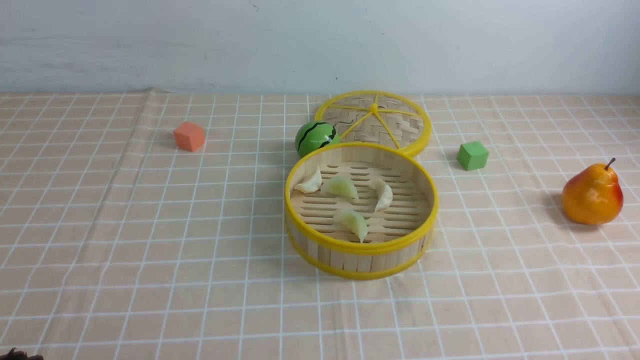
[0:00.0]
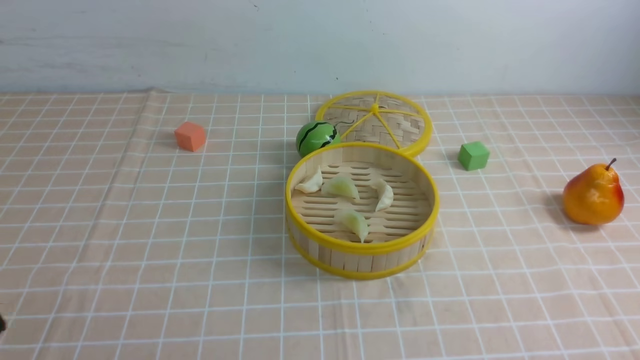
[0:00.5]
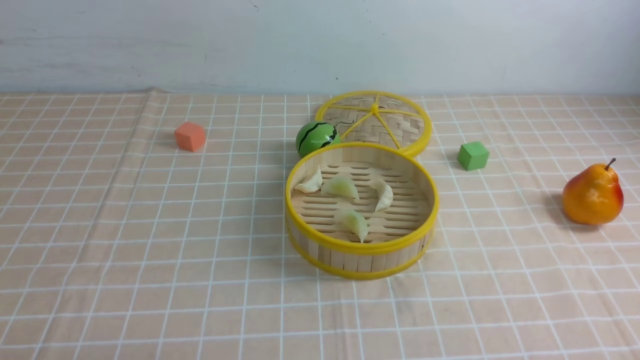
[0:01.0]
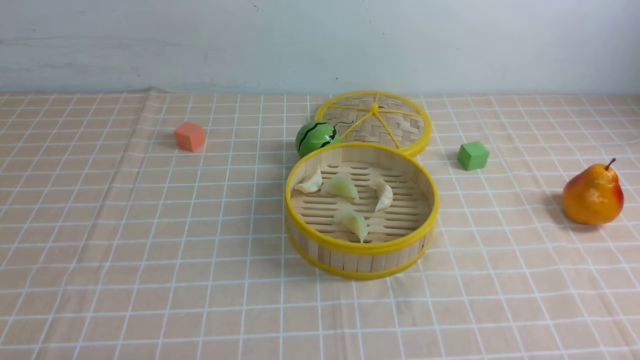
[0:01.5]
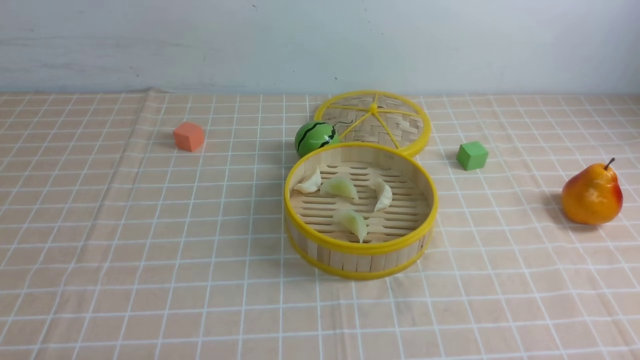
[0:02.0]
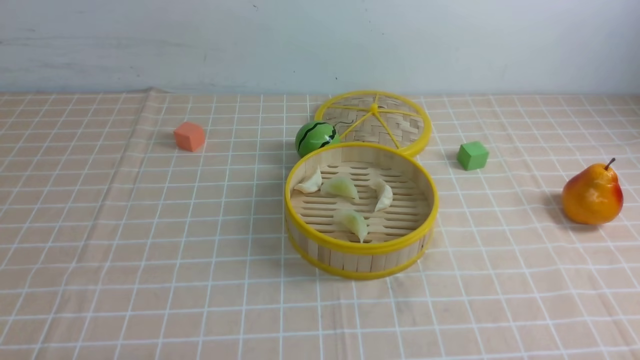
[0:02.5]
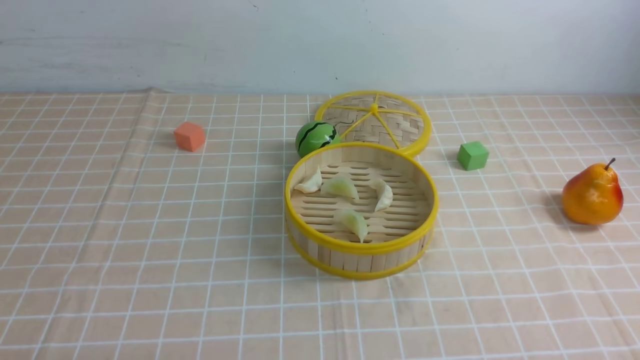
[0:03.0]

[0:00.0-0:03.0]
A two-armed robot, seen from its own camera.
Task of the whole recording: put the dumplings into the steamer on the table with the brown tablecloth.
0:01.5 to 0:03.0: Both grippers stay put.

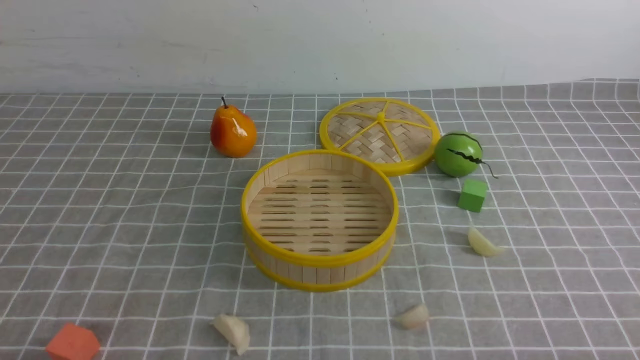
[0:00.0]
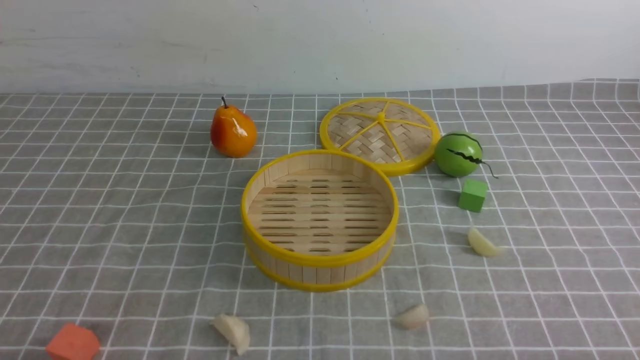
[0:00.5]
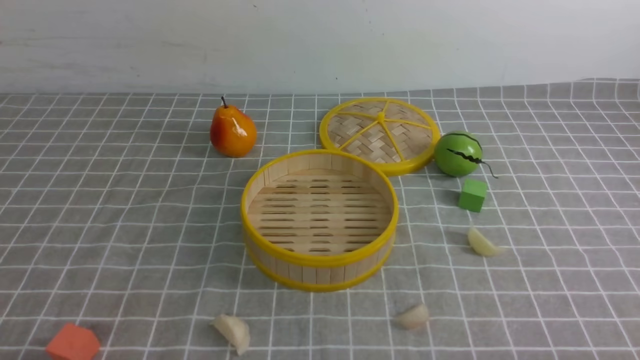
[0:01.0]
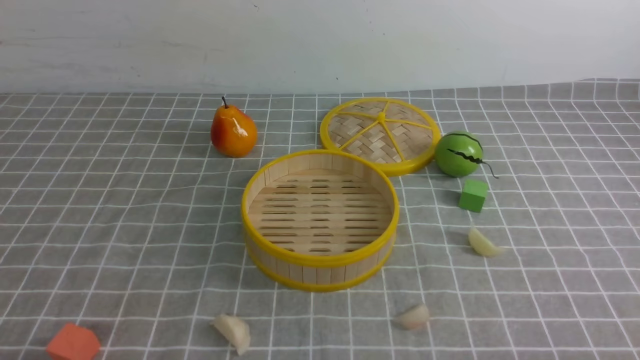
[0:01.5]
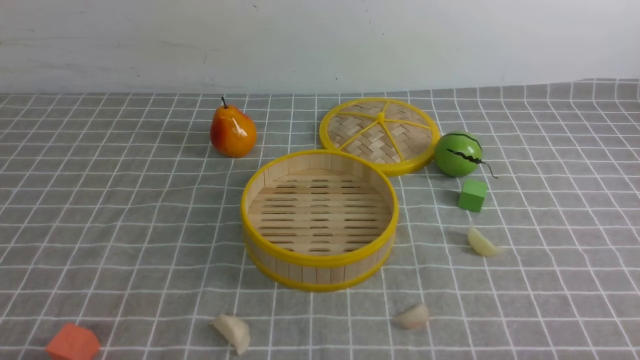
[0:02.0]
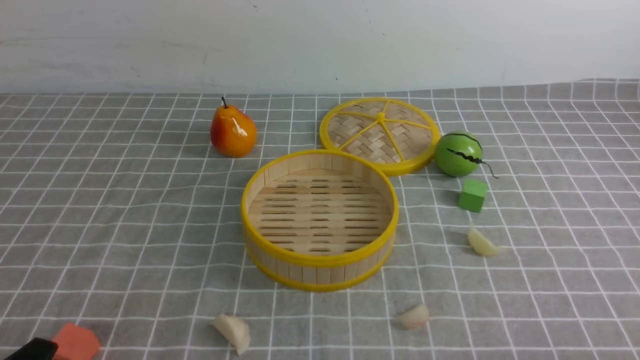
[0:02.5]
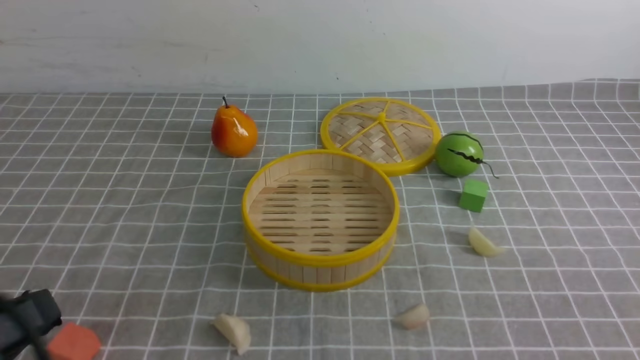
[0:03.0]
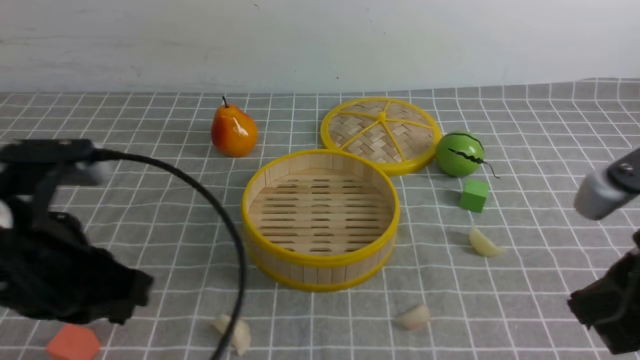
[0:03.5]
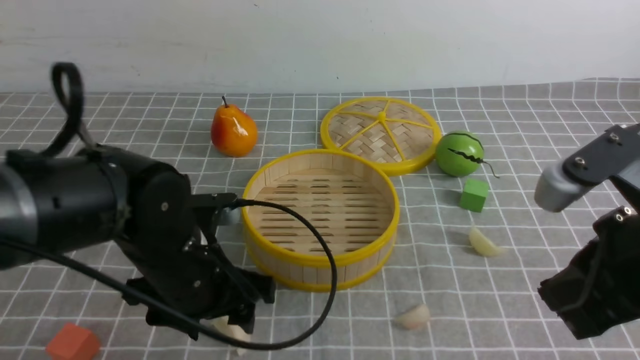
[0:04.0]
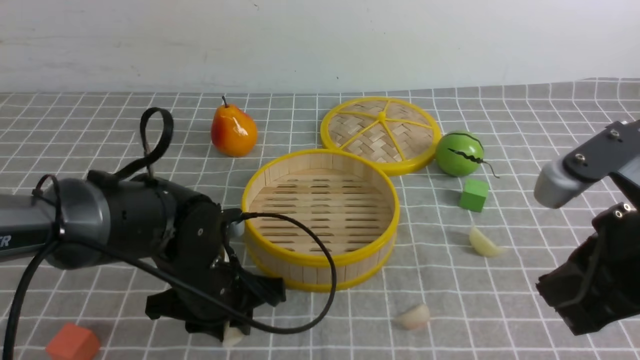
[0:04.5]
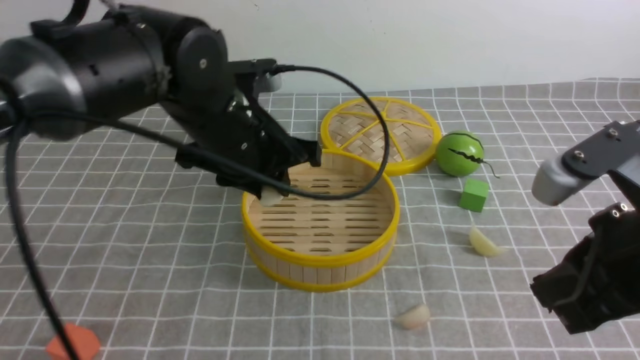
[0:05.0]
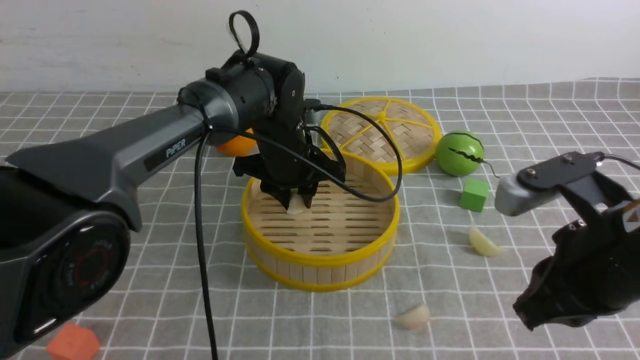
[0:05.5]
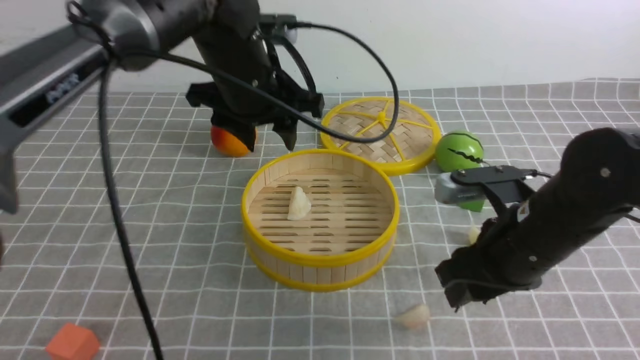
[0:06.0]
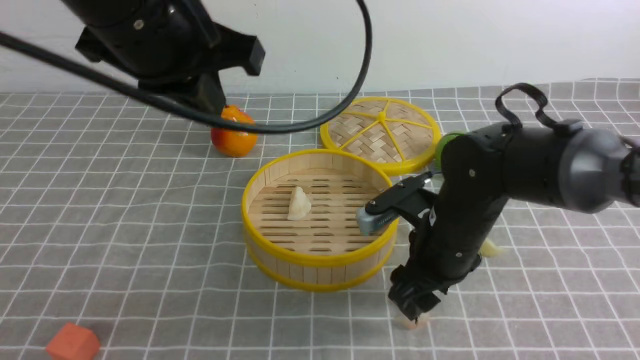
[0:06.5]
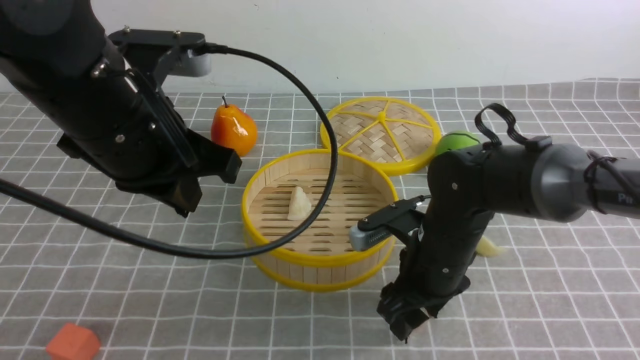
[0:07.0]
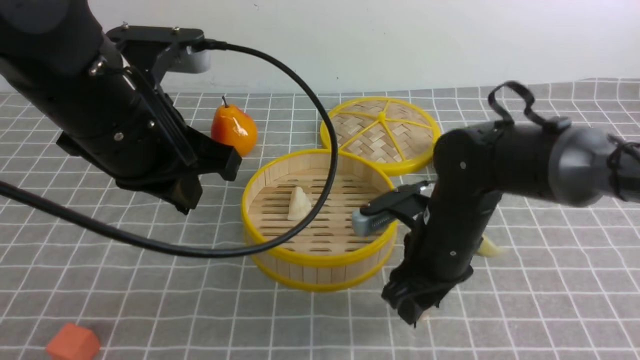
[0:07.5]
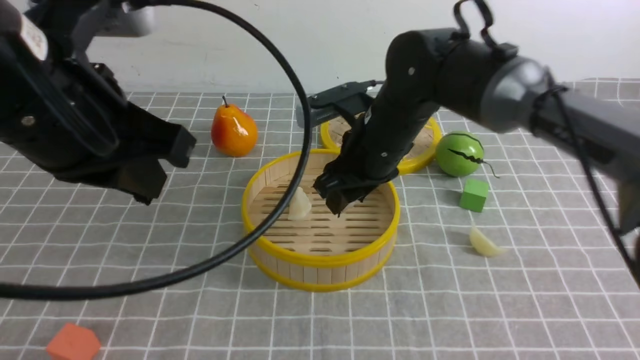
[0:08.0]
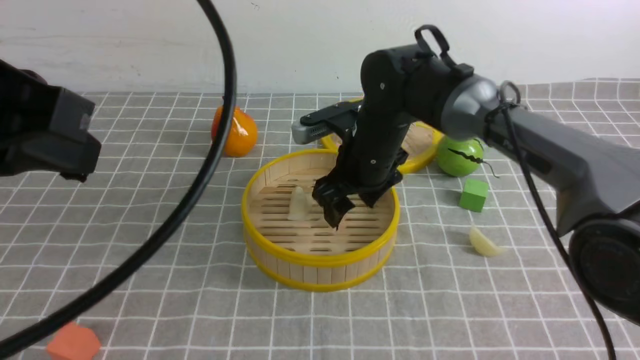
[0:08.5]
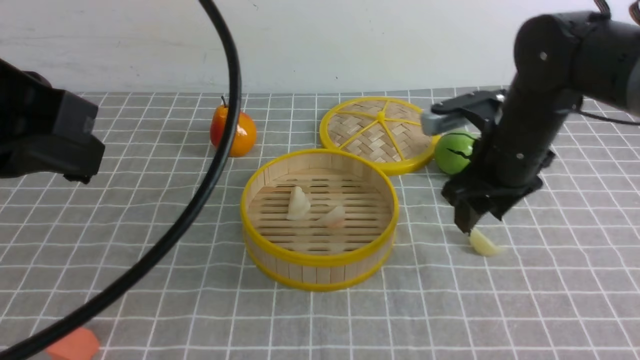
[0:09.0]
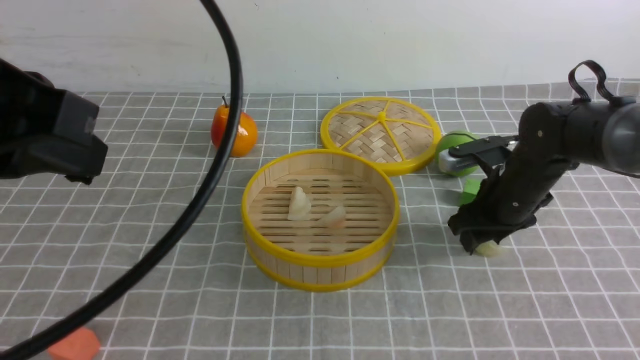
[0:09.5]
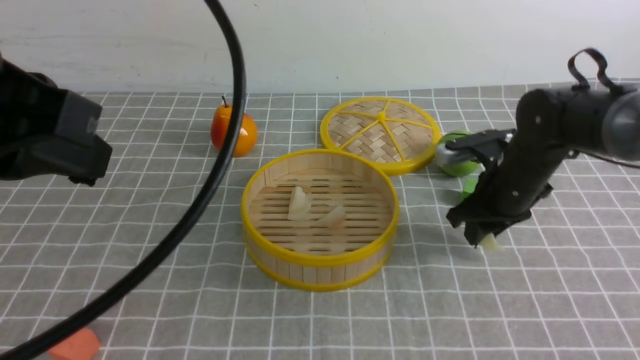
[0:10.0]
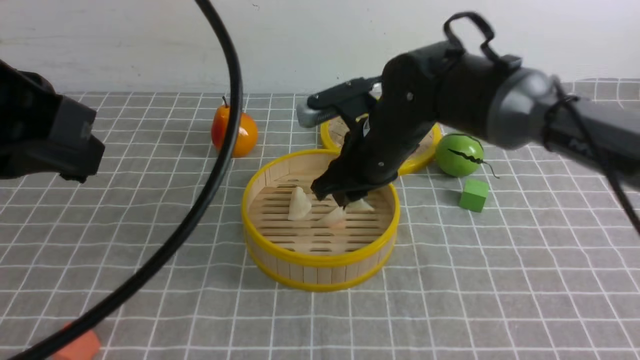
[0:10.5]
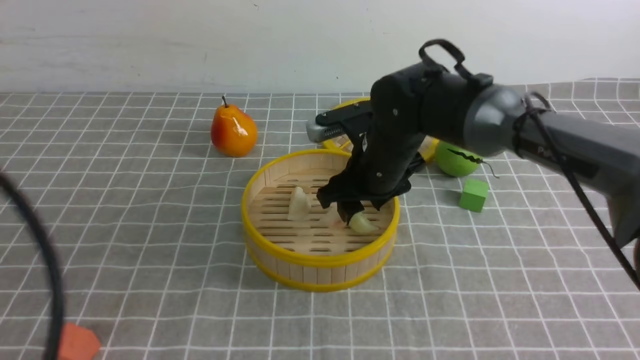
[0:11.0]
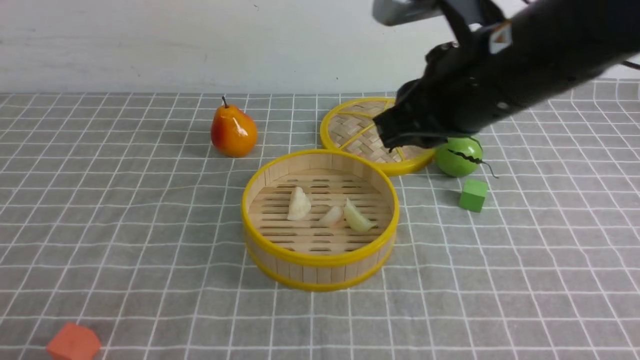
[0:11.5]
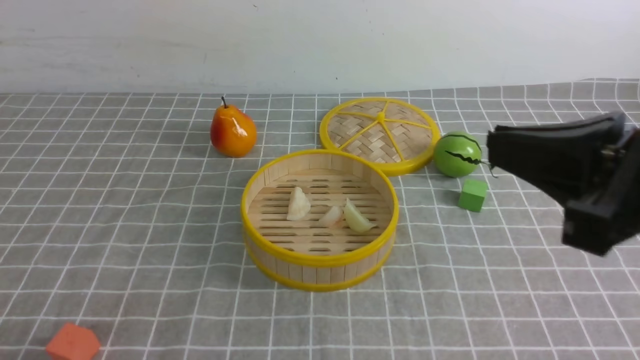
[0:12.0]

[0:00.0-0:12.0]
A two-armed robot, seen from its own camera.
Task of the whole recording: put the dumplings into the steamer on the table with the grey tablecloth.
Step, 0:00.0 to 0:04.5: use the left arm to grab a dumpling.
Step, 0:05.0 to 0:05.5: use the left arm to put the dumpling into the steamer.
Step, 0:06.0 to 0:07.0: use the right arm to grab a dumpling.
Step, 0:08.0 to 0:08.5: use the right arm to put the dumpling into the steamer.
Step, 0:09.0 to 0:09.5: use the right arm to grab a dumpling.
Step, 0:10.5 to 0:11.0: use the right arm to put the dumpling into the steamer.
0:02.0 to 0:04.0: The right gripper heads upward, forward and to the left, covering some 20 cm, and closes its fingers, while the left gripper shifts about 25 cm forward and to the right, and opens up.
0:04.0 to 0:06.0: The right gripper shifts roughly 15 cm forward and downward, and opens; the left gripper is displaced upward and forward by about 20 cm.
0:06.0 to 0:08.0: The left gripper goes some 20 cm backward and to the left, and closes its fingers. Meanwhile the right gripper moves forward and to the left, roughly 15 cm.
0:08.0 to 0:10.0: The right gripper travels to the right by roughly 15 cm; the left gripper travels backward by some 5 cm.
0:10.0 to 0:12.0: The right gripper heads backward and upward, covering approximately 30 cm, and closes. The left gripper goes about 25 cm downward, backward and to the left.

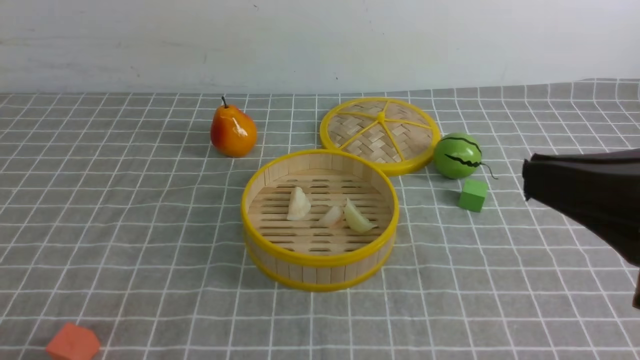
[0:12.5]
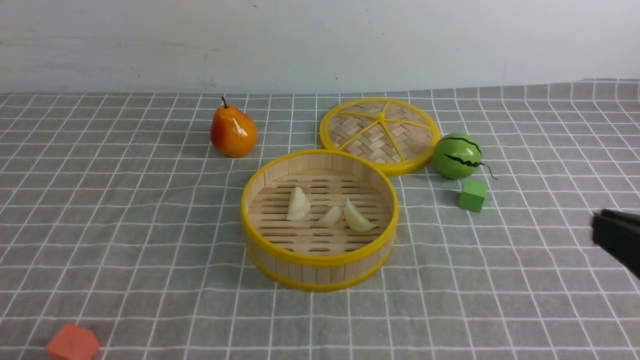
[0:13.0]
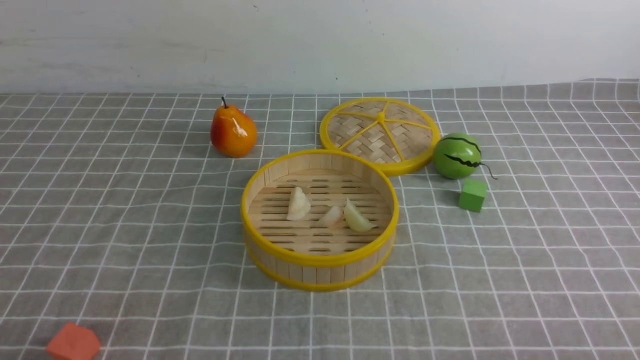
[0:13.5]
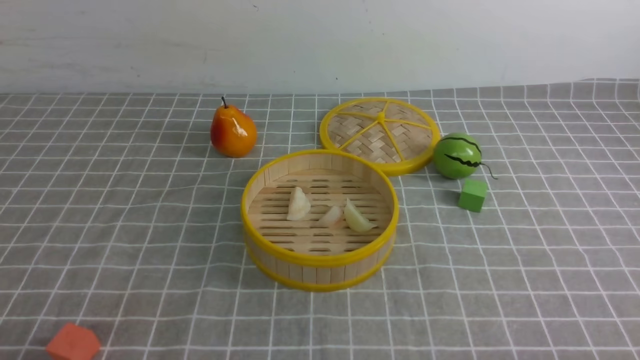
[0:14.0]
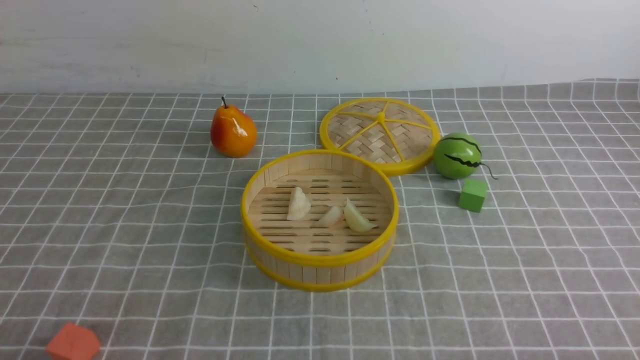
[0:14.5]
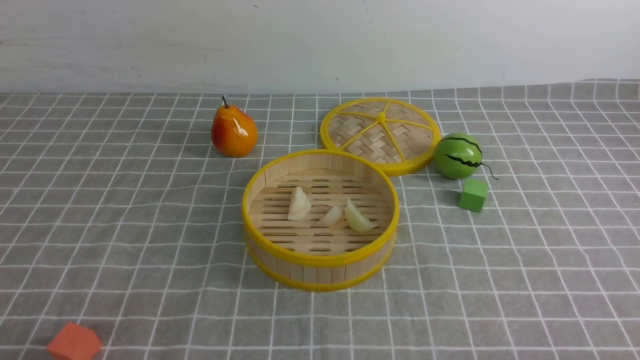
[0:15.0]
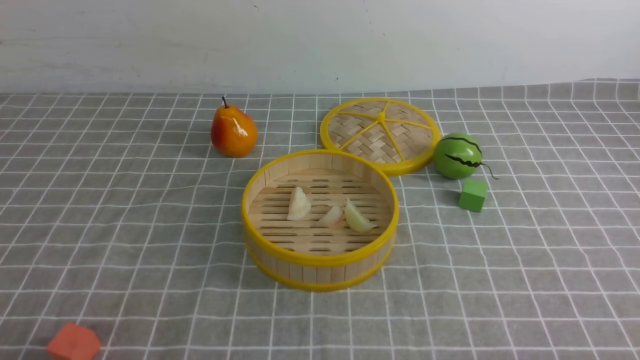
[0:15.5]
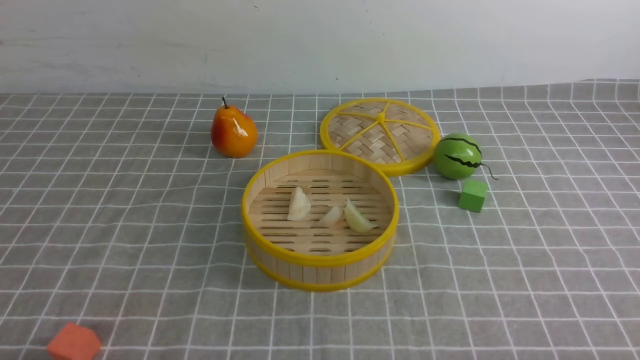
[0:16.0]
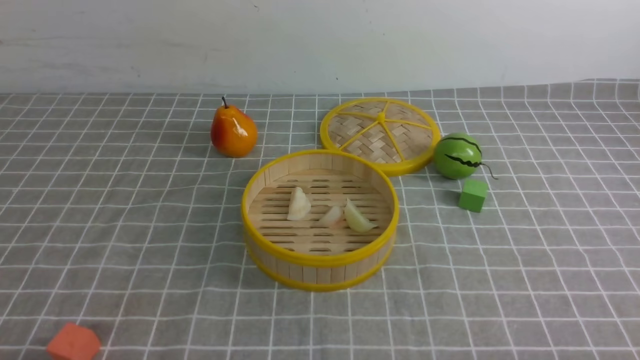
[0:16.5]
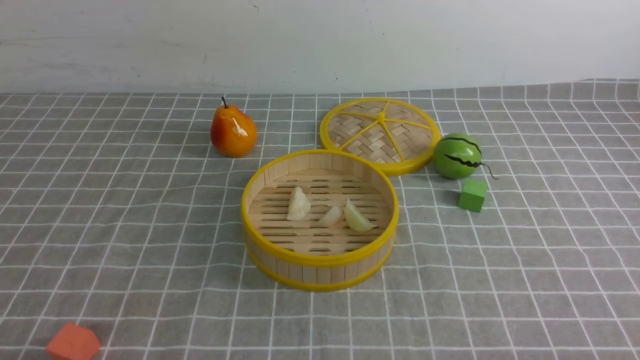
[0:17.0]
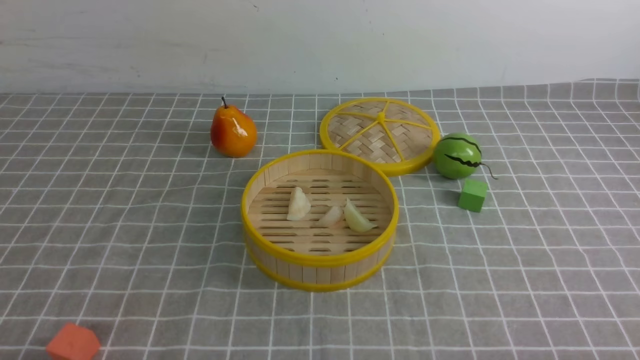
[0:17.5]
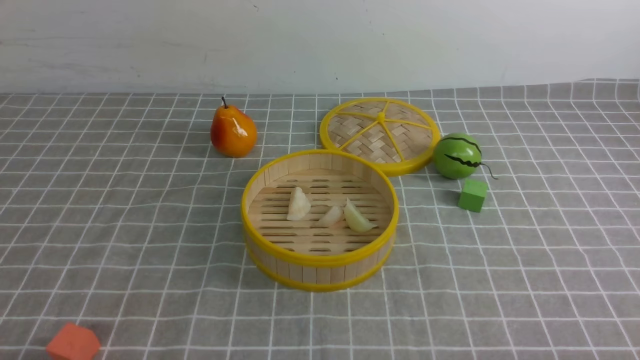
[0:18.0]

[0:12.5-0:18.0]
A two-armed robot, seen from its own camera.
Task of the whole recording: put the dumplings into the steamer on the table with the grey tablecloth.
0:12.5 to 0:14.5: The right gripper moves downward and to the right, about 25 cm.
0:16.0 to 0:18.0: Both grippers stay about where they are.
